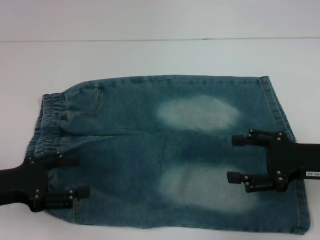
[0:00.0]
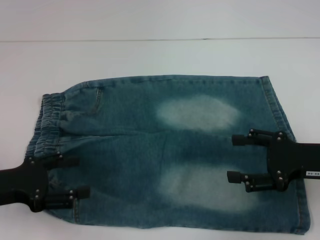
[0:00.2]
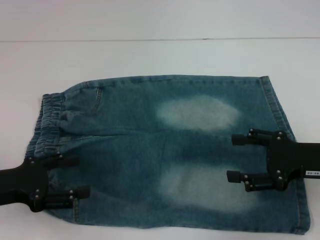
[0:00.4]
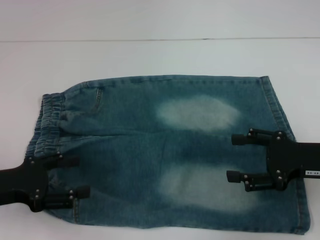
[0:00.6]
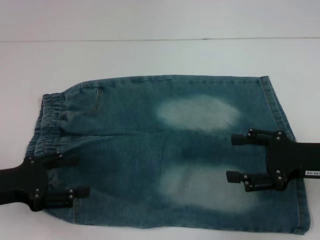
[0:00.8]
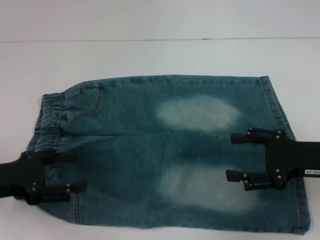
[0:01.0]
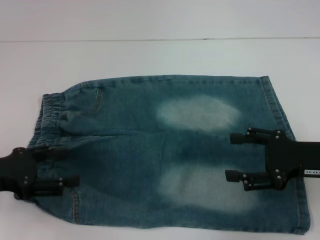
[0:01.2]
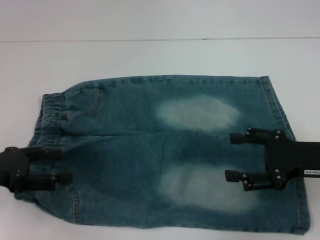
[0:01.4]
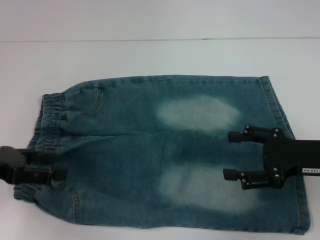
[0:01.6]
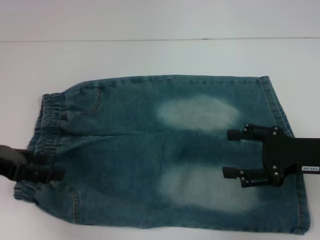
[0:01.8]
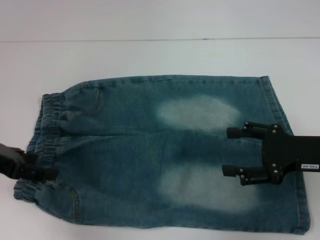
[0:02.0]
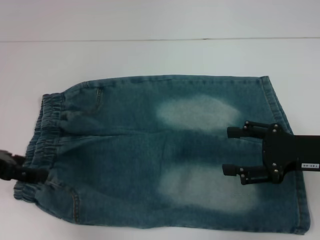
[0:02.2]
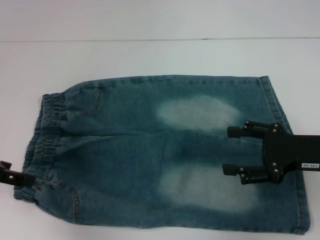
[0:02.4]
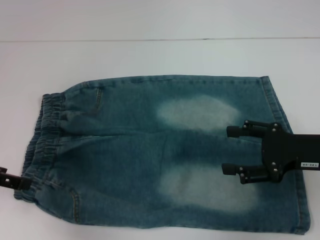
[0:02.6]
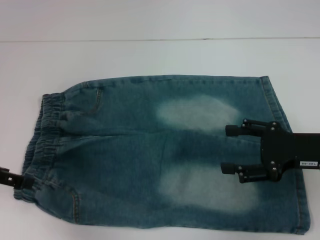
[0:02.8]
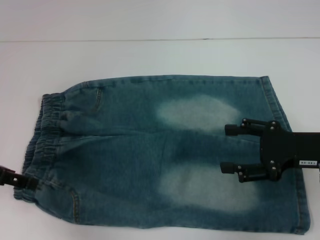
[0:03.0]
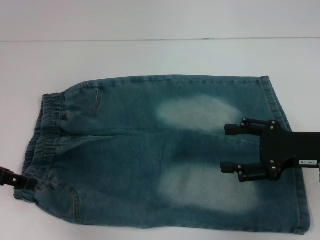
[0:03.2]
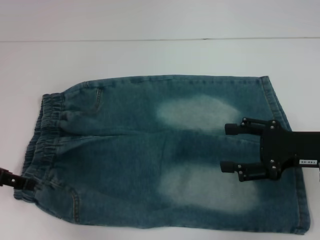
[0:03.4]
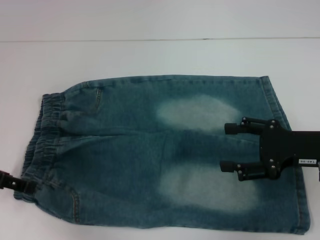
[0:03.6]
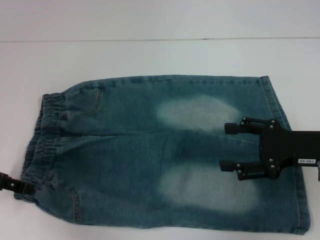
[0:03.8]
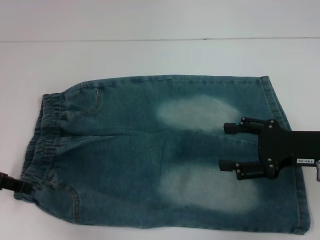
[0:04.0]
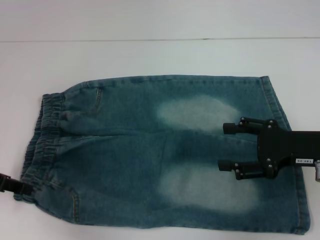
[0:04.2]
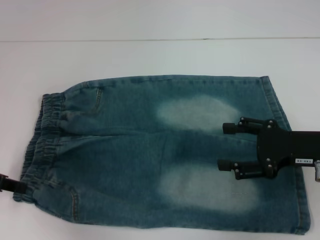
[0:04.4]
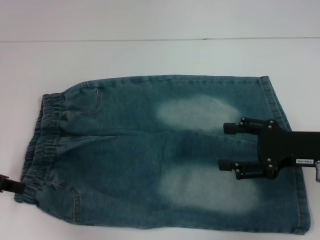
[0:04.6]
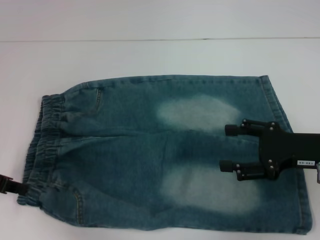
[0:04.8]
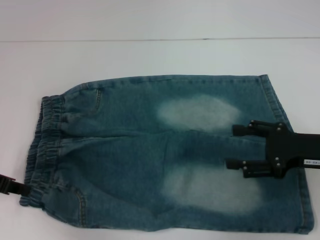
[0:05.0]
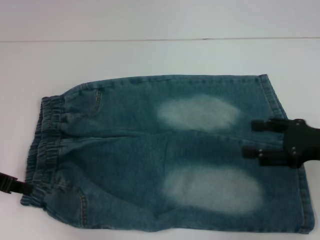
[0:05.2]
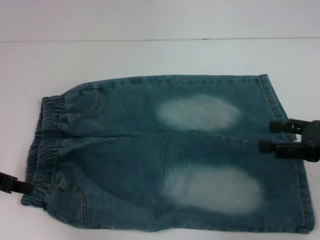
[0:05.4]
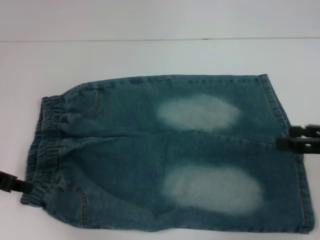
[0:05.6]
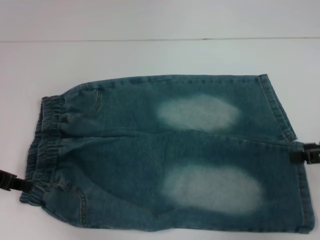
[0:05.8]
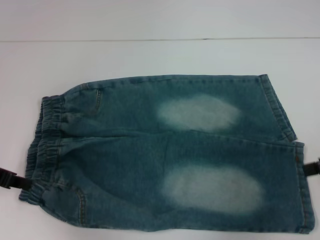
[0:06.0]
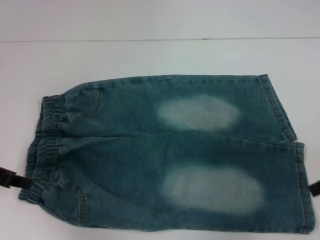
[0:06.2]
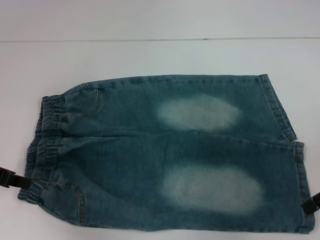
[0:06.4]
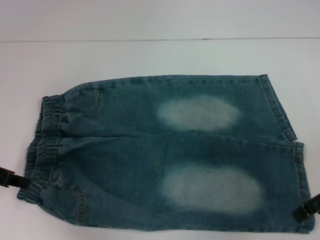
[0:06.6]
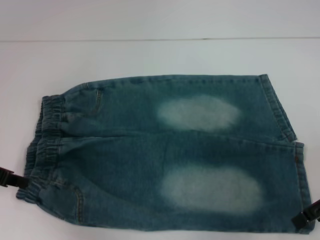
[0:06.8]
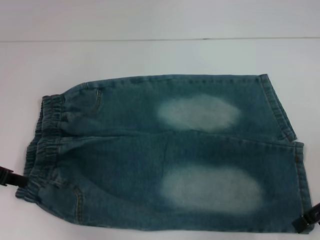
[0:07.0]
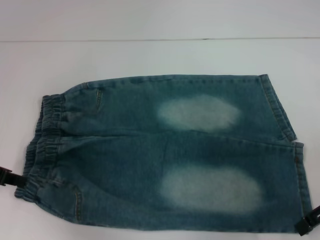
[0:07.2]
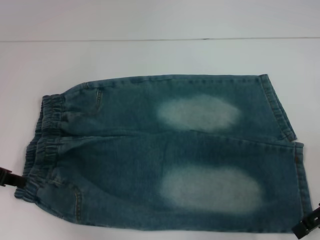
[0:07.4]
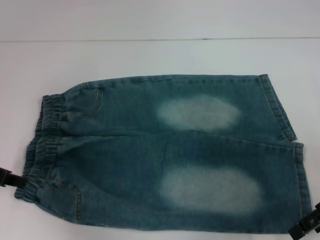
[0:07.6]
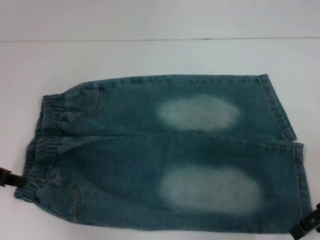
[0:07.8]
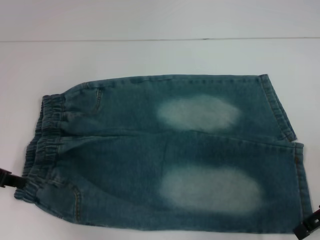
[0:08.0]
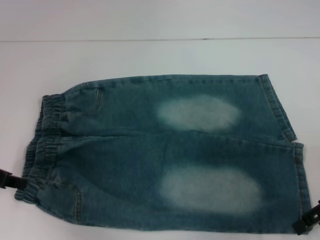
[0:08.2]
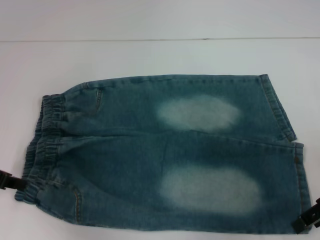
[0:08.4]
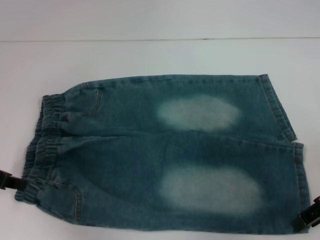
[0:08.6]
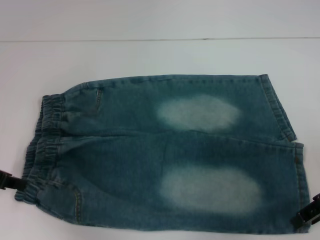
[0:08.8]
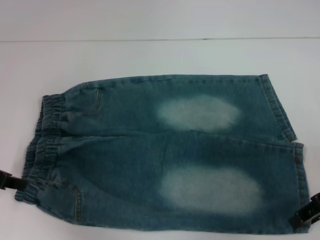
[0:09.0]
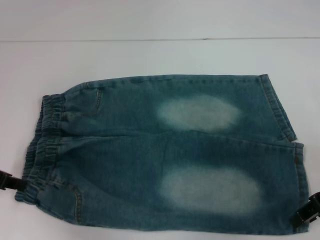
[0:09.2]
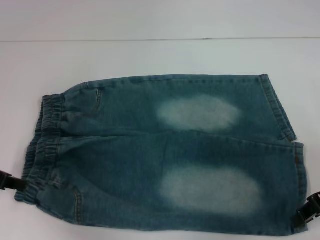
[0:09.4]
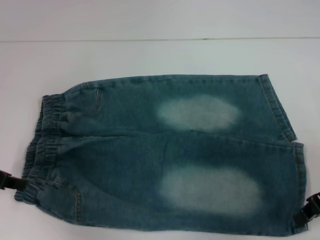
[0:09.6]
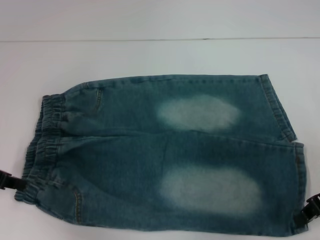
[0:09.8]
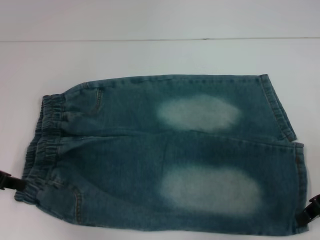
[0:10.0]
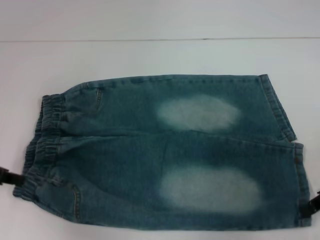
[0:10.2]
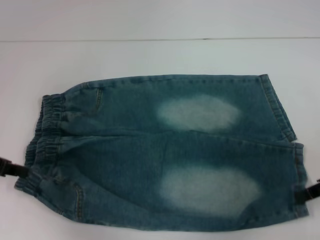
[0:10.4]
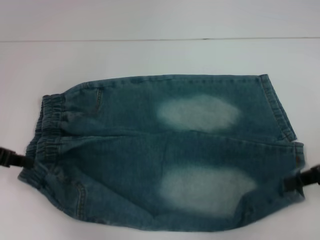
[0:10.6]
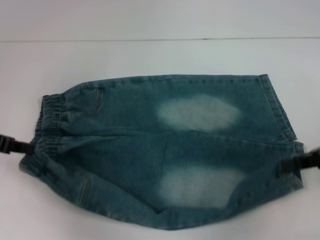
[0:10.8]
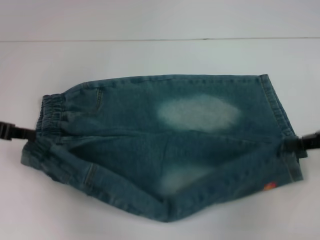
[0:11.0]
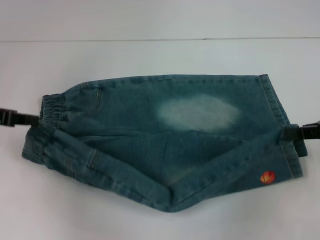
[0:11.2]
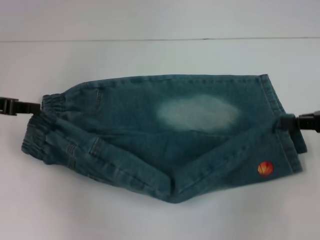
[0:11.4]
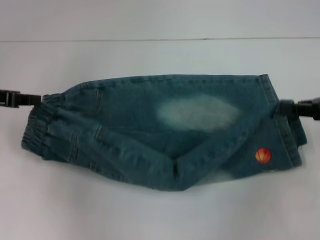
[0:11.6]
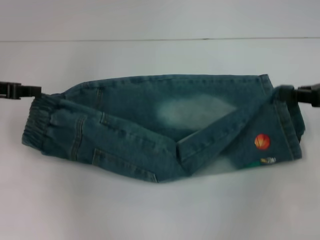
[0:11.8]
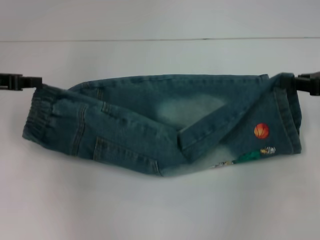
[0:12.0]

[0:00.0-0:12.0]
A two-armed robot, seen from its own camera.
Step, 0:00.0 to 0:04.4: Hold the lower left waistband with your left hand.
Step, 0:04.6 to 0:09.4: Grab the lower right pant leg with your right hand.
0:00.0 to 0:01.6: The left gripper moves upward, some 5 cm.
0:03.0 to 0:04.4: The left gripper closes.
0:04.4 to 0:06.0: The left gripper closes its fingers, while the right gripper is displaced to the right and upward by approximately 10 cm.
0:06.0 to 0:07.6: The right gripper travels to the left by some 5 cm.
0:07.6 to 0:09.0: Both grippers stay put.
0:09.0 to 0:10.4: The right gripper closes.
0:10.4 to 0:12.0: The left gripper changes place by roughly 5 cm; the right gripper is displaced forward by some 5 cm.

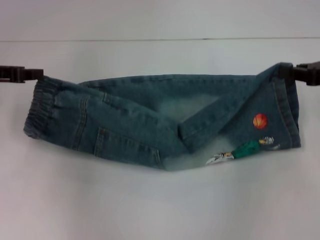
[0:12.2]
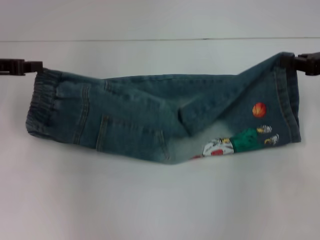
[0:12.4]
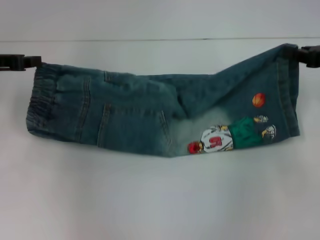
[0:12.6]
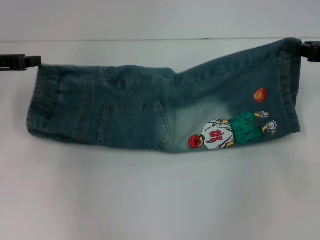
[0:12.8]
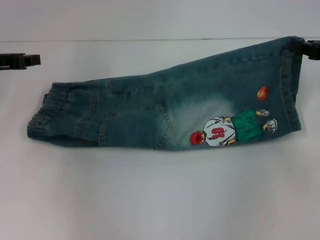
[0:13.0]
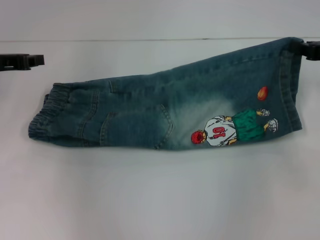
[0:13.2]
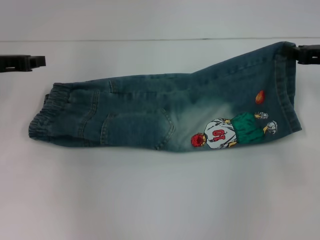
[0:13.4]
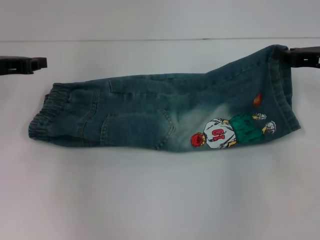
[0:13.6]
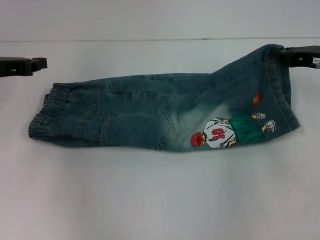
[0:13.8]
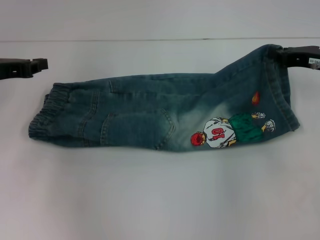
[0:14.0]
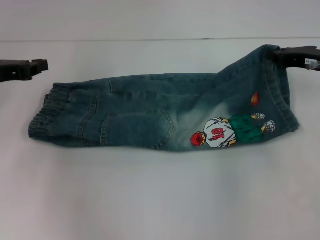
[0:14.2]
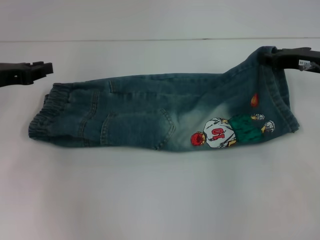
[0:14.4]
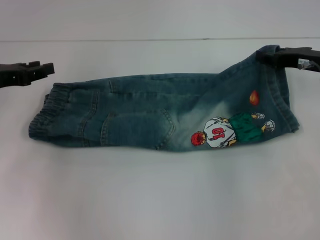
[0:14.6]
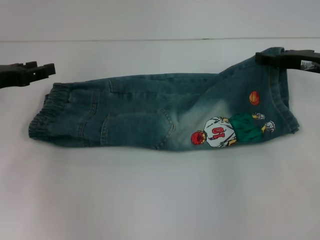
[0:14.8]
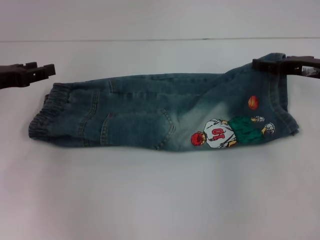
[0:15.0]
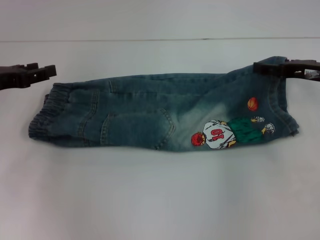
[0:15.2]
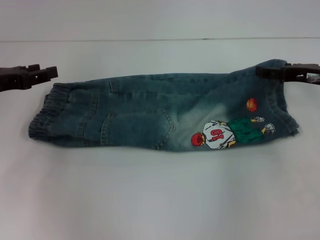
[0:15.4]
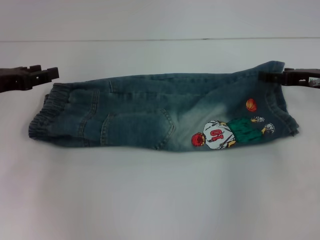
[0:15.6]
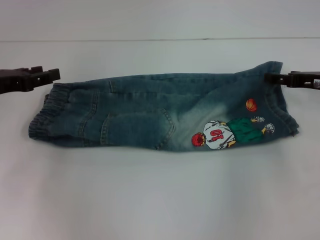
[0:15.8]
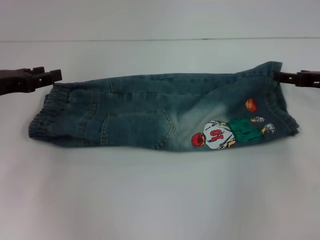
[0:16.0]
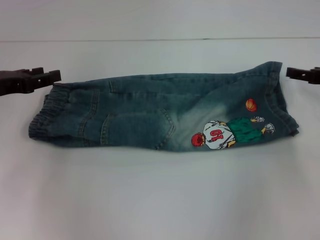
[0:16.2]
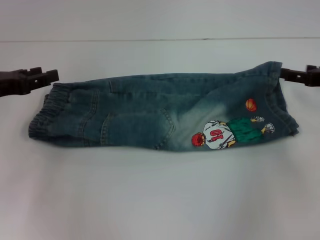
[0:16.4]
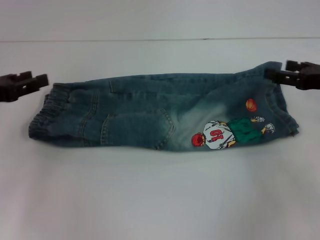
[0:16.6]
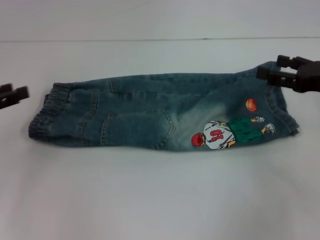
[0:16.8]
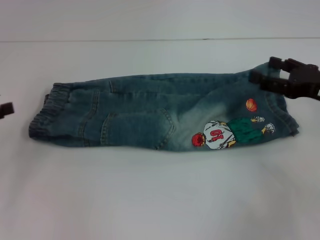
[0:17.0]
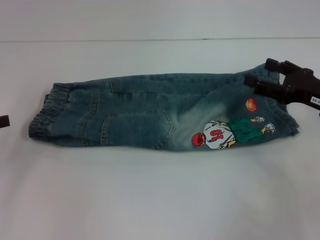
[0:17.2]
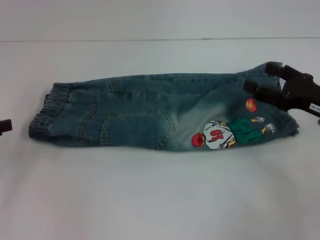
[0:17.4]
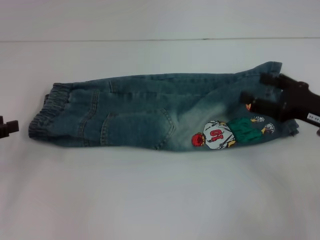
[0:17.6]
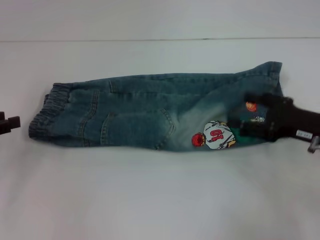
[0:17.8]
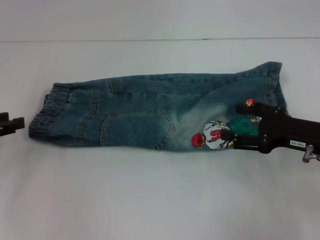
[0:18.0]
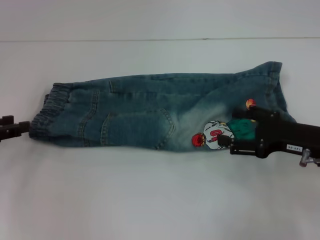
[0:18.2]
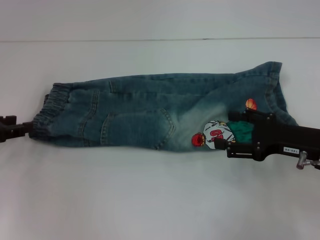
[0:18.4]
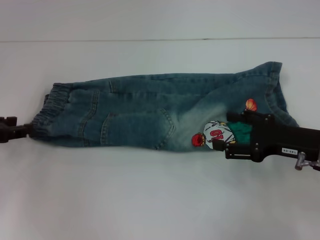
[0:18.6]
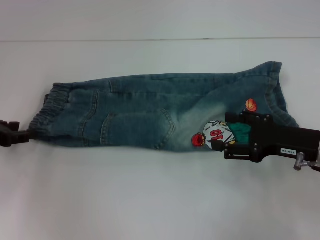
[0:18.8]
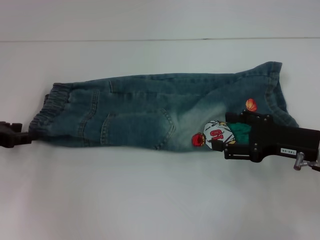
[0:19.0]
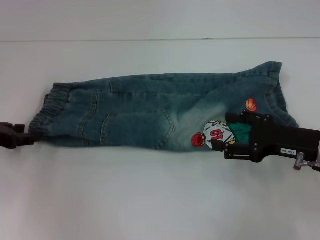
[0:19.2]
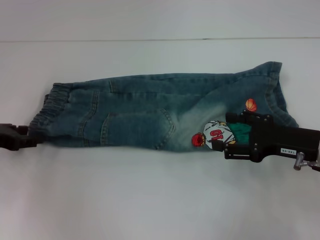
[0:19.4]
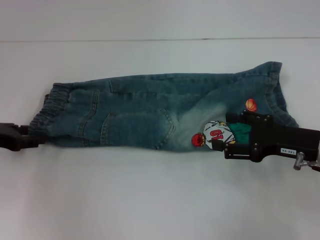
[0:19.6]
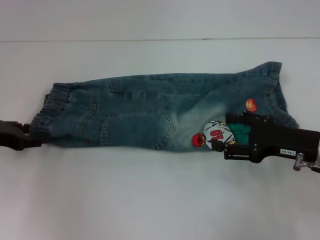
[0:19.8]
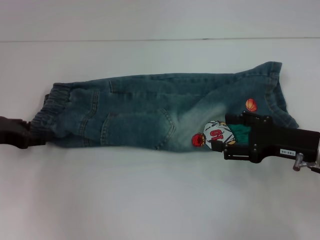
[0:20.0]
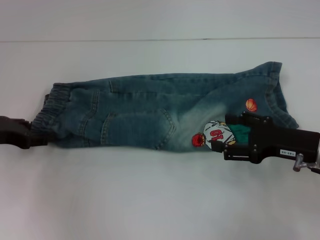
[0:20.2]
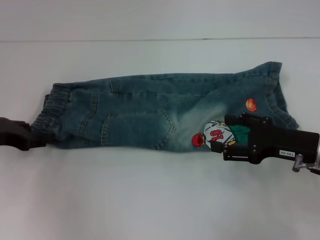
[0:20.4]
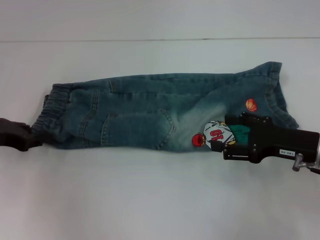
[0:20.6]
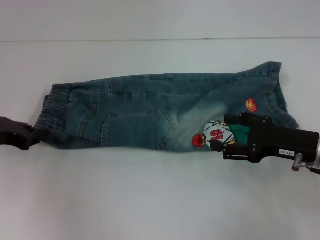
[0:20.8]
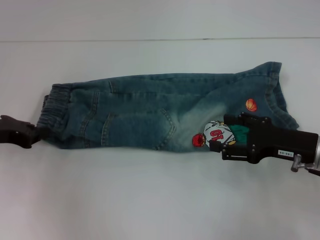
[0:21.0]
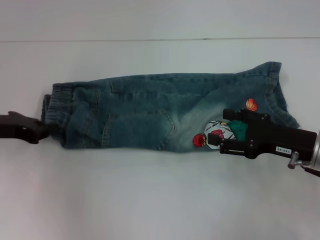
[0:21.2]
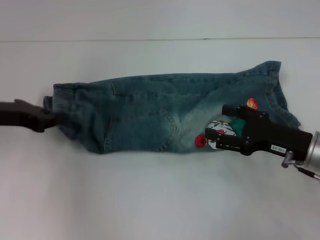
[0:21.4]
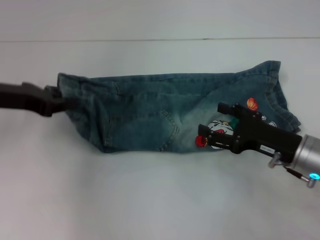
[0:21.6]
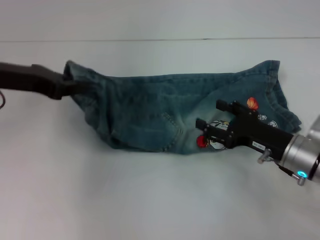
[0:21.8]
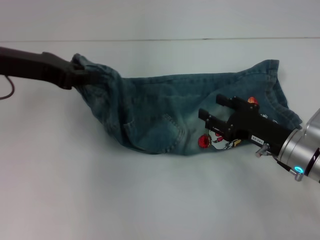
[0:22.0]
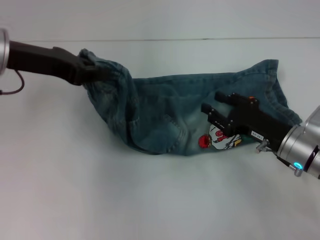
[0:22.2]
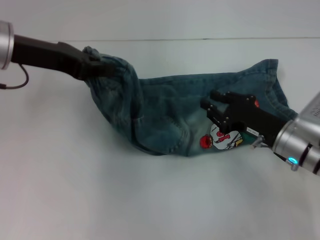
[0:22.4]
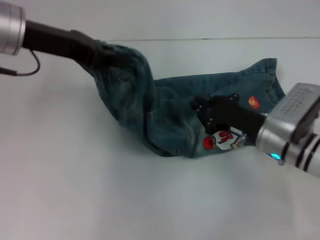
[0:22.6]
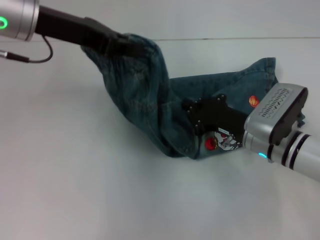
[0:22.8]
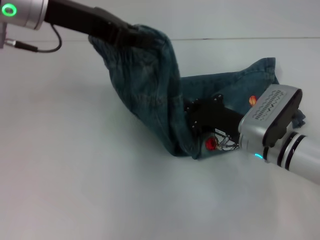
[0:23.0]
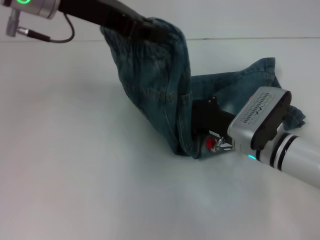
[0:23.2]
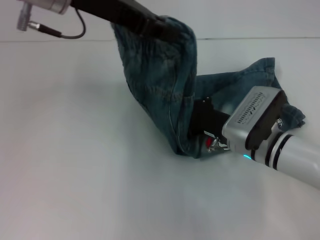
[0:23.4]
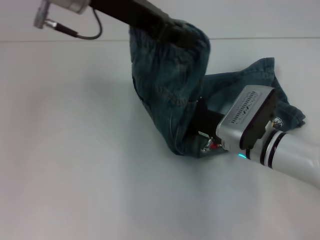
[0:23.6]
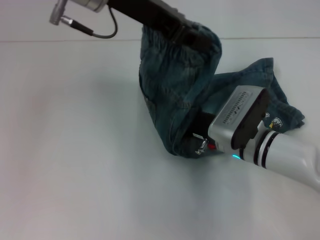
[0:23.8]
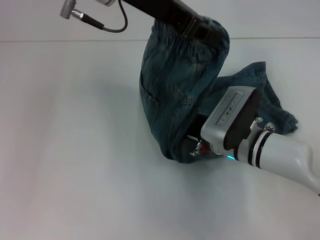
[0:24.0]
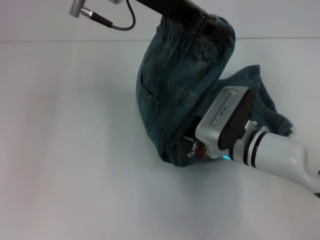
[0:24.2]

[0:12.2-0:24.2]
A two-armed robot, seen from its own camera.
Step, 0:13.0 to 0:15.6: Fold upward with your right hand.
Step, 0:15.8 to 0:20.8: Hold the waistband with your left hand.
0:12.2 to 0:13.8: The right gripper changes place by about 5 cm.
0:13.8 to 0:15.2: The right gripper opens, while the left gripper opens its fingers.
0:15.2 to 0:16.6: The right gripper travels backward by some 5 cm.
0:16.6 to 0:18.2: The right gripper heads downward, covering approximately 5 cm.
0:18.2 to 0:19.8: The grippers move only a little.
0:19.8 to 0:21.2: The left gripper closes.
0:21.2 to 0:22.6: The left gripper goes approximately 15 cm upward and to the right. The right gripper goes roughly 5 cm to the left, and closes.
0:22.6 to 0:24.2: The right gripper goes roughly 10 cm to the left, and closes. The left gripper is displaced to the right and upward by some 15 cm.
